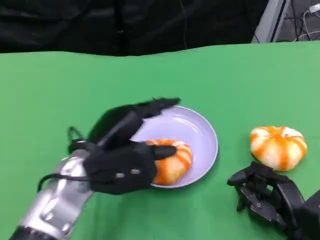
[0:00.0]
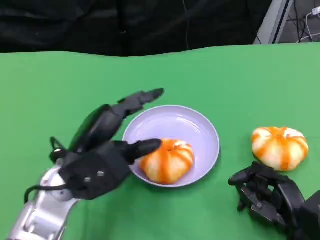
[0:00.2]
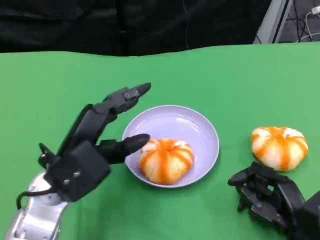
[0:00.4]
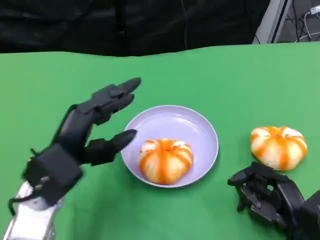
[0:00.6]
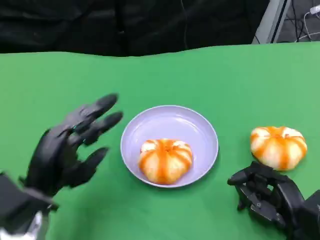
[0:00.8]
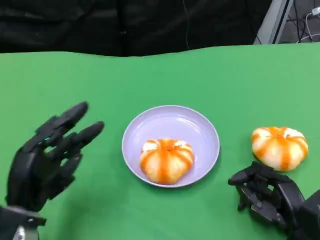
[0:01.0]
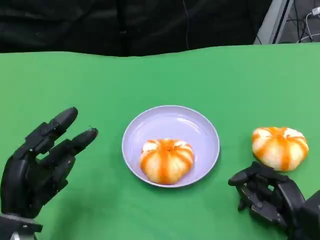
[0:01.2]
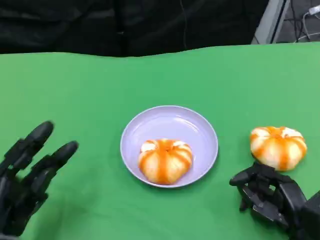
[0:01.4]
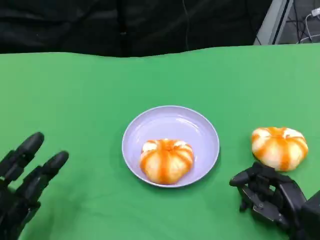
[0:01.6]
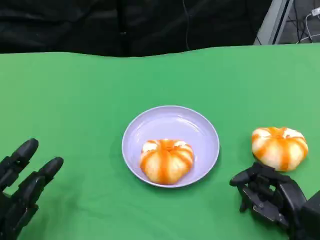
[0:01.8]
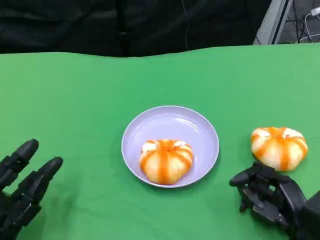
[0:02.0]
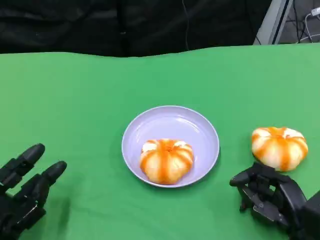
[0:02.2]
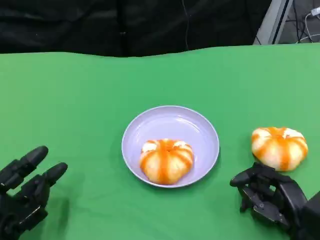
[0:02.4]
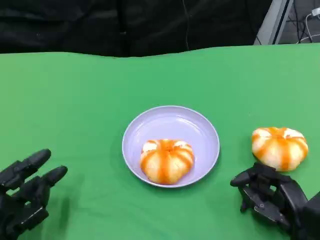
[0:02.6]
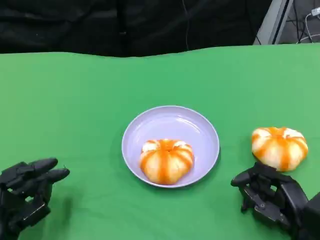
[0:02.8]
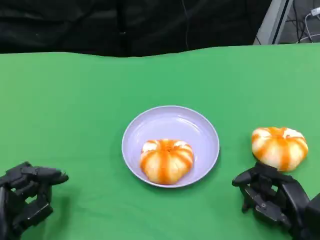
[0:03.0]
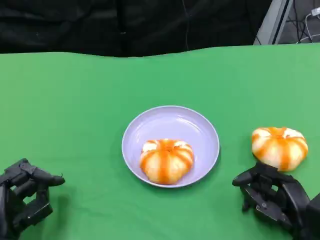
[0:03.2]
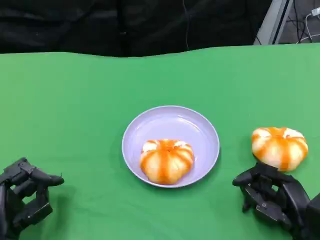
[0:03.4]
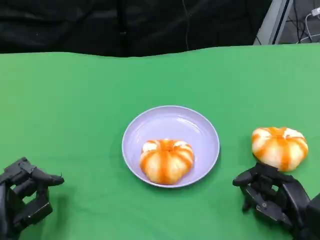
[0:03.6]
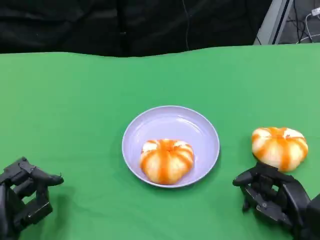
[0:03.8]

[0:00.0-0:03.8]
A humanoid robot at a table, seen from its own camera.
Task of the whole recording: Grasp the bread from the table and place it into the plate.
0:00.0 to 0:01.2: The left hand heads to the left, downward and backward, covering some 15 cm.
0:01.2 to 0:02.6: The left hand ends up about 5 cm from where it was.
0:02.6 to 0:03.8: The hands move only a little.

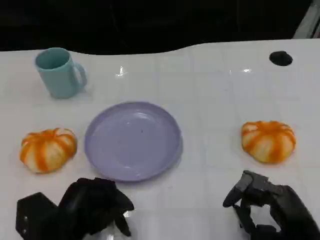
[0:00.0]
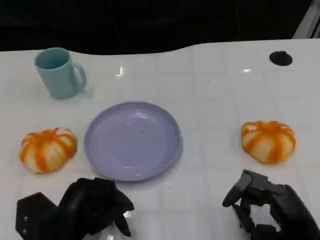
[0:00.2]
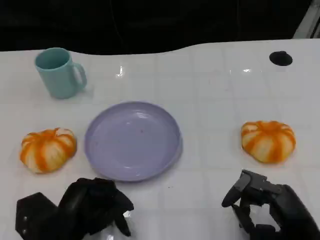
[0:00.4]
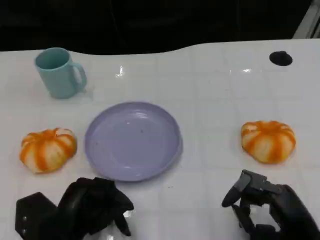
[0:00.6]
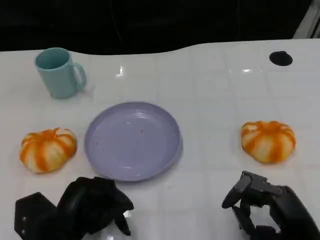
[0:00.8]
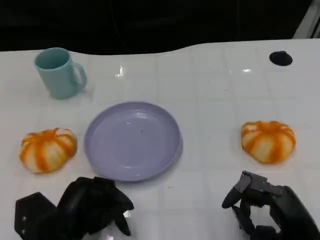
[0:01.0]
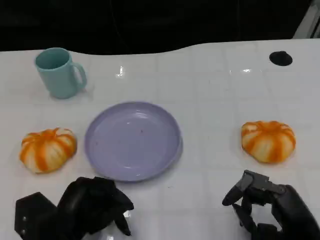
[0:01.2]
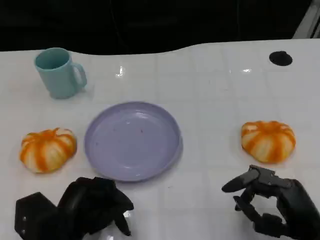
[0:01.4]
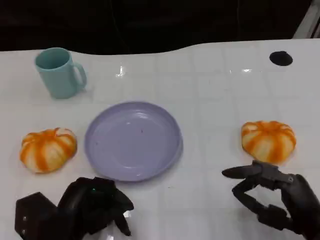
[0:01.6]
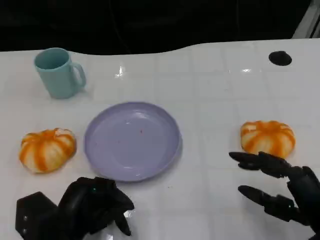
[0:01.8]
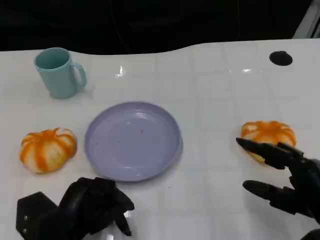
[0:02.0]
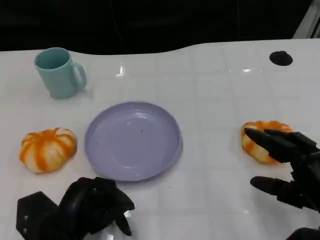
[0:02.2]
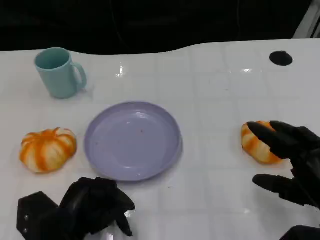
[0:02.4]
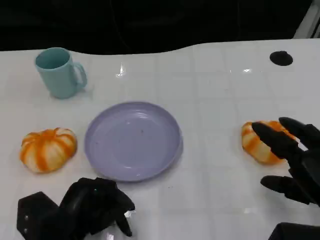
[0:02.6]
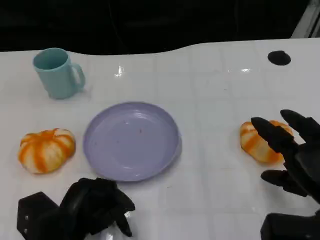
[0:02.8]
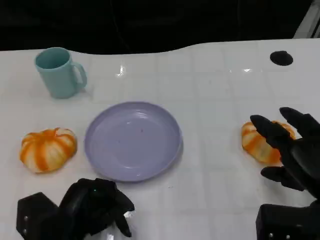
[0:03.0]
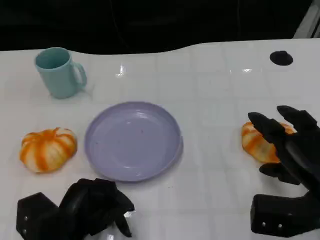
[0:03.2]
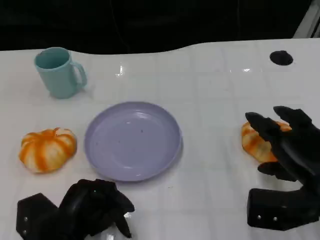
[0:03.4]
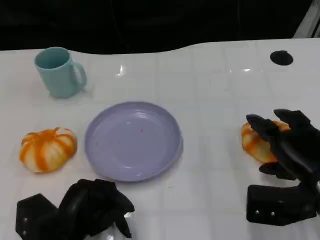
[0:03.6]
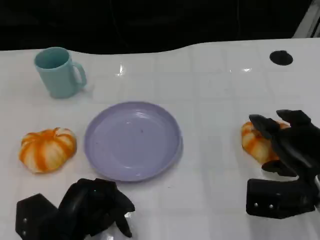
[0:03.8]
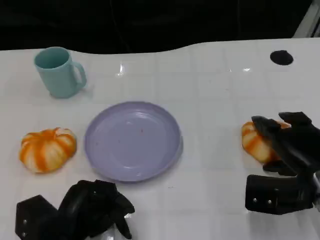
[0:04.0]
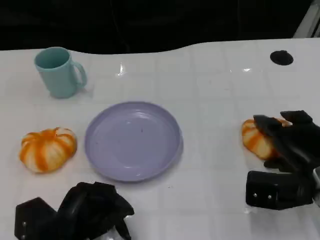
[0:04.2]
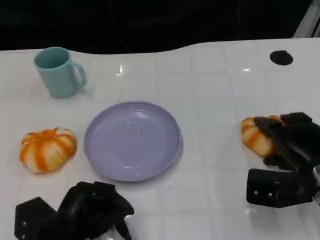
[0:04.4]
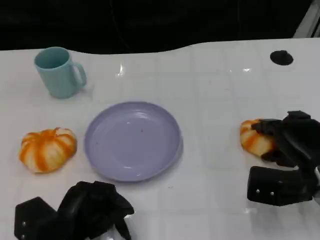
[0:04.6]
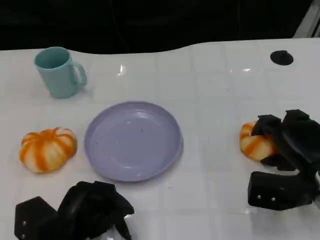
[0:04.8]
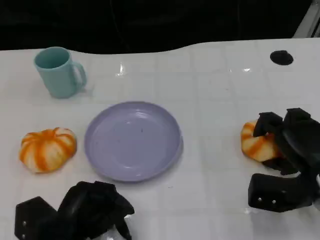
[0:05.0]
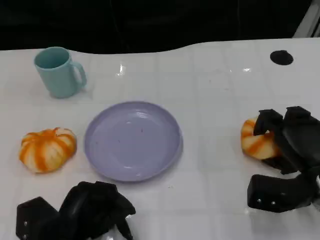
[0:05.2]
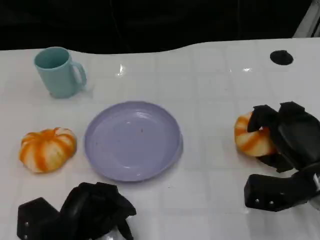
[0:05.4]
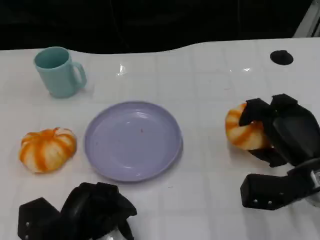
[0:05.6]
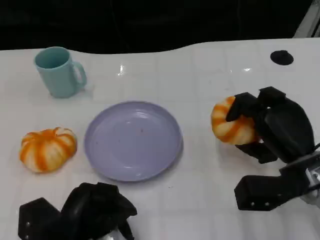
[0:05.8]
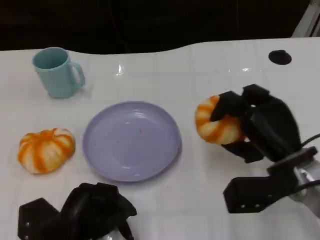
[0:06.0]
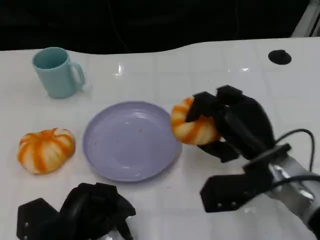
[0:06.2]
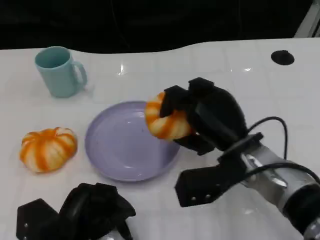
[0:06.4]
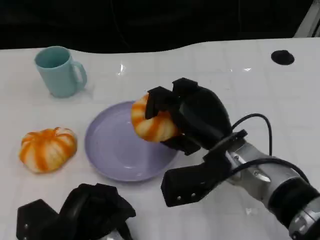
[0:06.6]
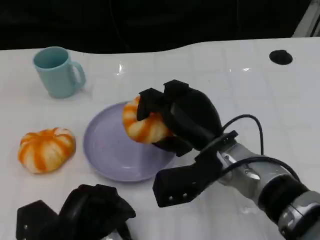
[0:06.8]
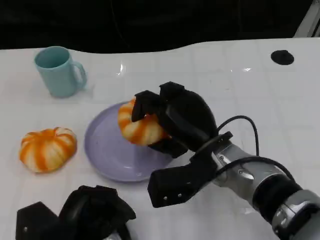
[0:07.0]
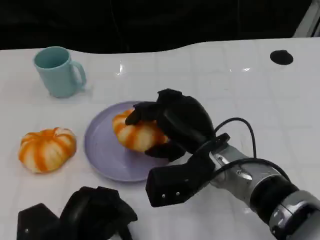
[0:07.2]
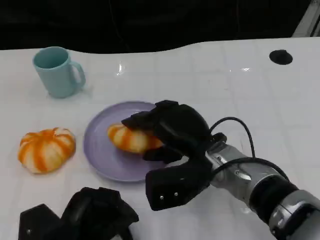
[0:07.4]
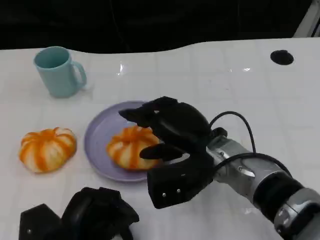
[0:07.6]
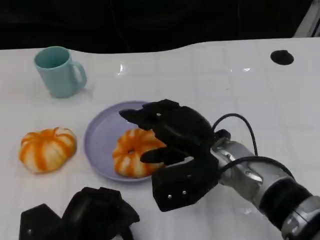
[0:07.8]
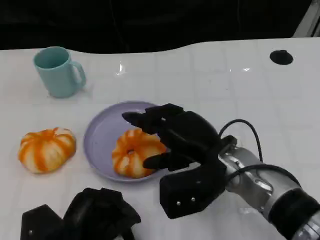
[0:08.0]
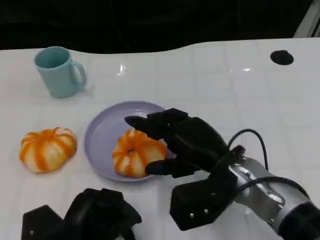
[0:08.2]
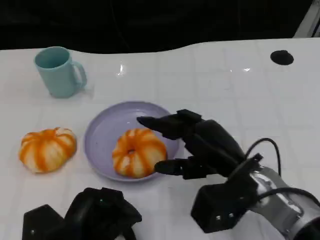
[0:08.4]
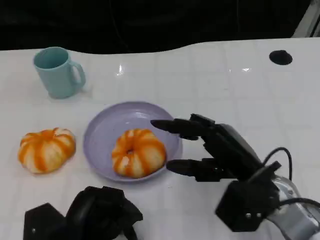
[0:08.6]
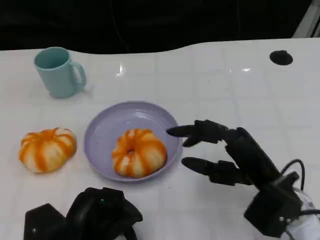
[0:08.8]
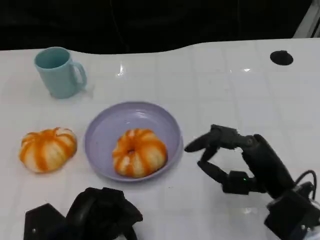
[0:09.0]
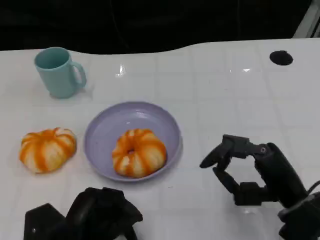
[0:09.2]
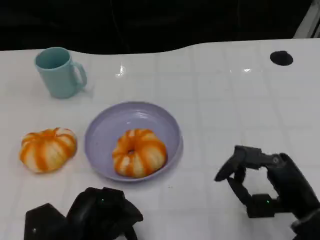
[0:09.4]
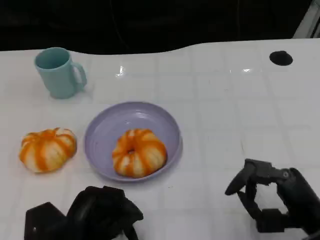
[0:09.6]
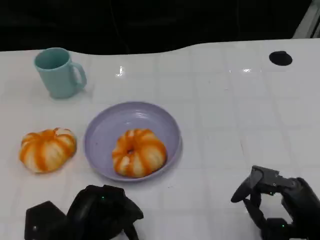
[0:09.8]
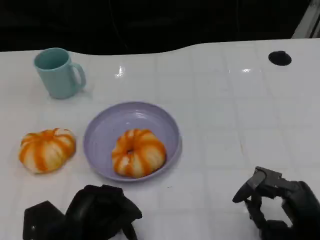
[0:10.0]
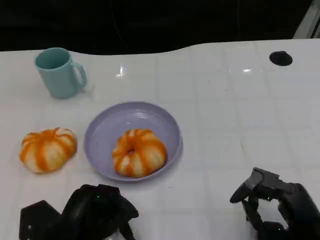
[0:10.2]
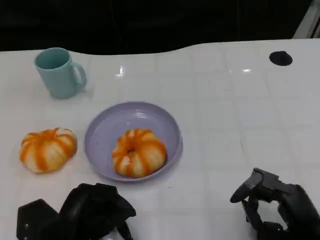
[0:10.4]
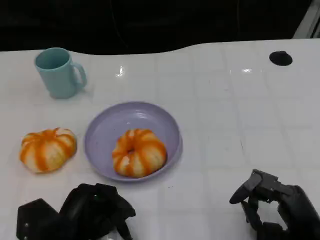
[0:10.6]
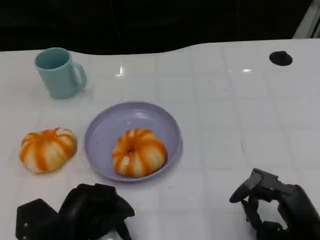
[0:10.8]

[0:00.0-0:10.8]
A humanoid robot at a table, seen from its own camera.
Task of the whole recording: Grasp the bread from the table and place it into the plate.
0:00.0 to 0:01.6: There are only small adjustments of the hands.
0:01.6 to 0:03.0: The right hand ends up approximately 5 cm from where it was.
0:03.0 to 0:04.6: The right hand goes approximately 5 cm forward.
0:04.6 to 0:06.2: The right hand is displaced to the left by approximately 10 cm.
0:06.2 to 0:07.8: The right hand travels to the left by roughly 5 cm.
0:07.8 to 0:09.2: The right hand travels to the right and backward by some 15 cm.
0:09.2 to 0:10.8: The right hand ends up roughly 5 cm from where it was.

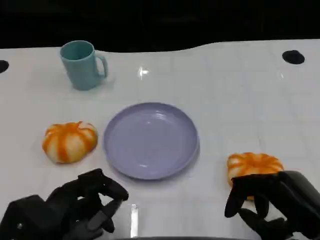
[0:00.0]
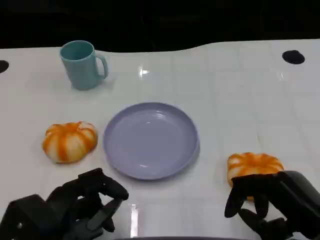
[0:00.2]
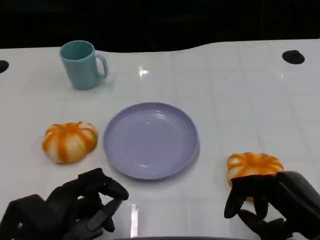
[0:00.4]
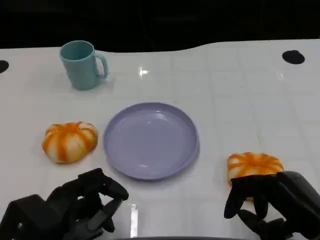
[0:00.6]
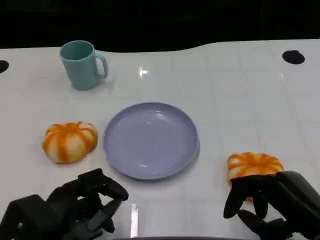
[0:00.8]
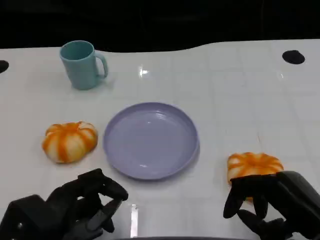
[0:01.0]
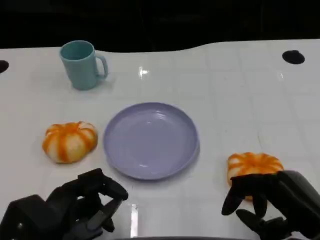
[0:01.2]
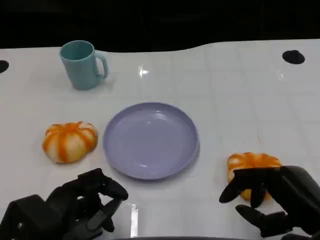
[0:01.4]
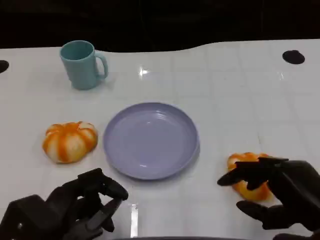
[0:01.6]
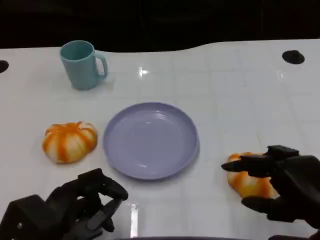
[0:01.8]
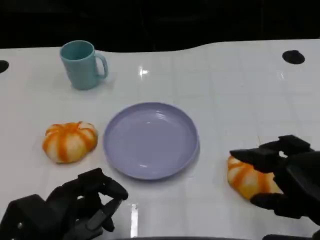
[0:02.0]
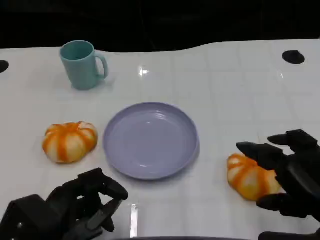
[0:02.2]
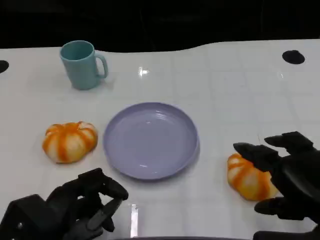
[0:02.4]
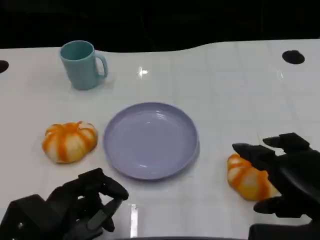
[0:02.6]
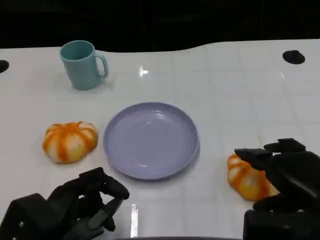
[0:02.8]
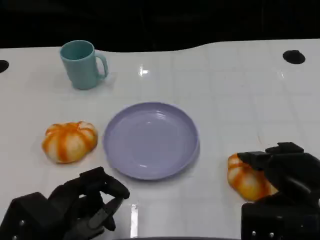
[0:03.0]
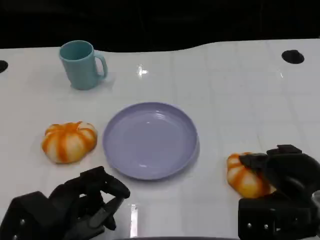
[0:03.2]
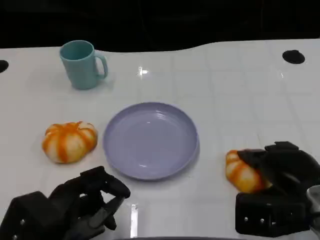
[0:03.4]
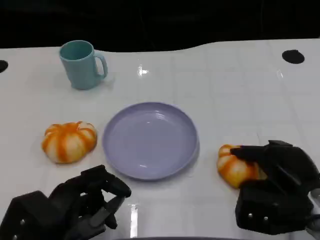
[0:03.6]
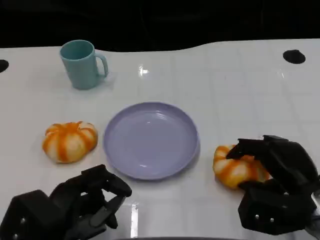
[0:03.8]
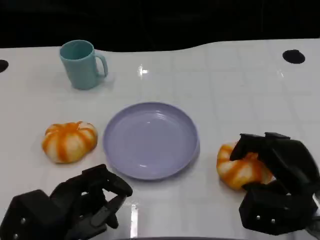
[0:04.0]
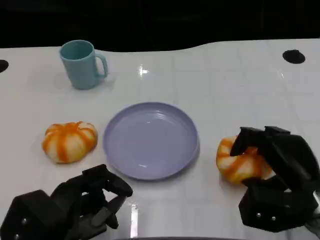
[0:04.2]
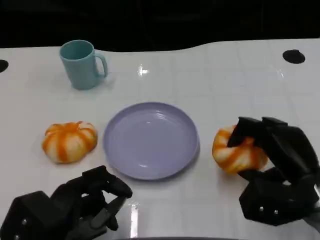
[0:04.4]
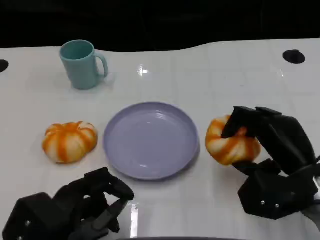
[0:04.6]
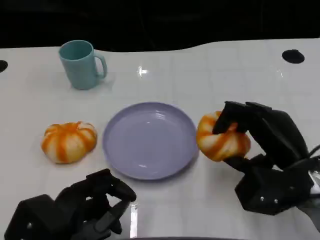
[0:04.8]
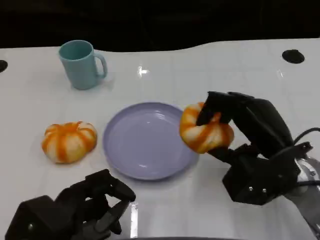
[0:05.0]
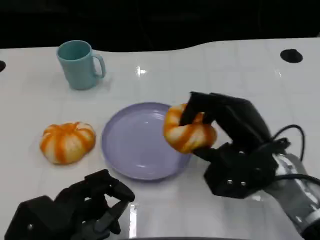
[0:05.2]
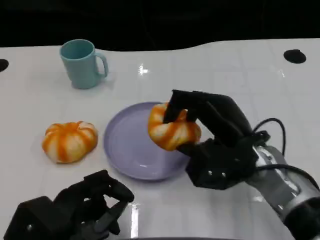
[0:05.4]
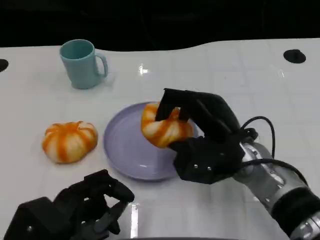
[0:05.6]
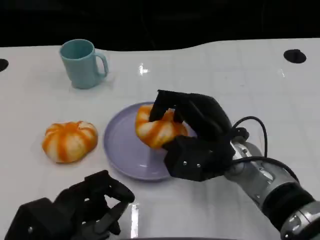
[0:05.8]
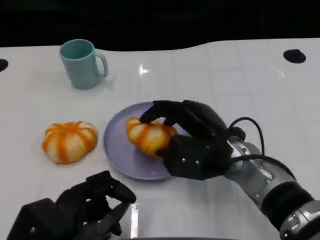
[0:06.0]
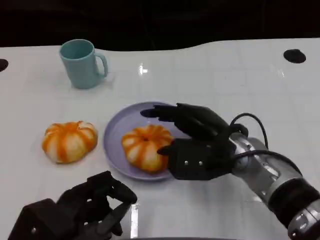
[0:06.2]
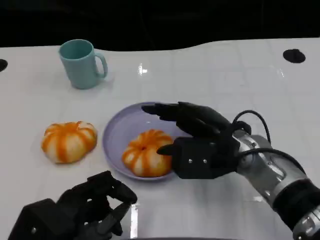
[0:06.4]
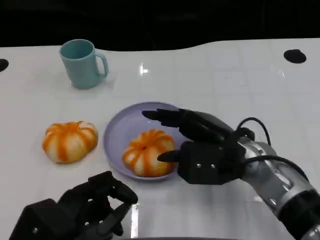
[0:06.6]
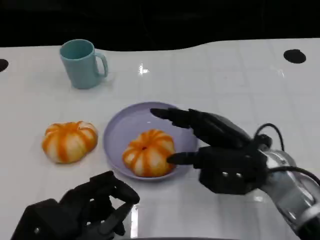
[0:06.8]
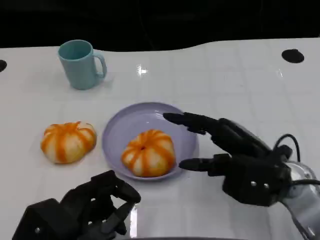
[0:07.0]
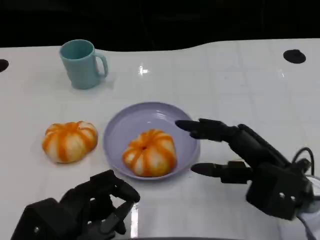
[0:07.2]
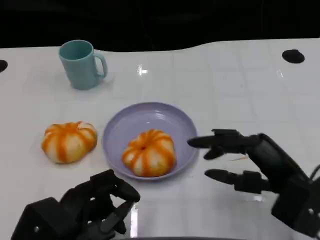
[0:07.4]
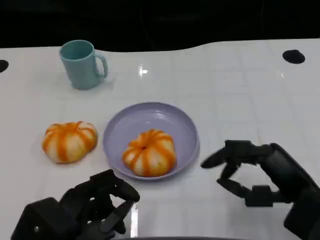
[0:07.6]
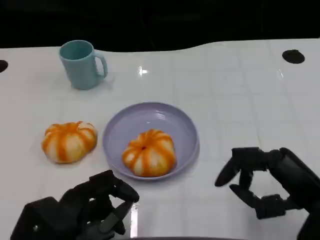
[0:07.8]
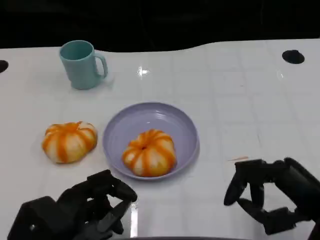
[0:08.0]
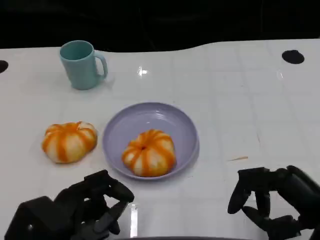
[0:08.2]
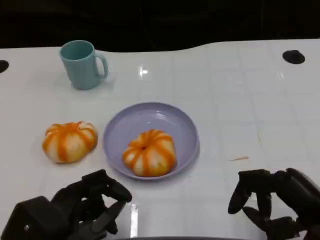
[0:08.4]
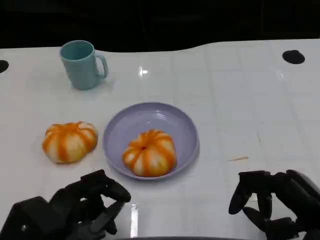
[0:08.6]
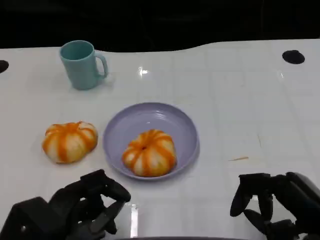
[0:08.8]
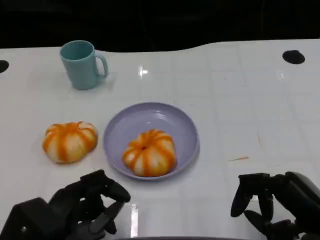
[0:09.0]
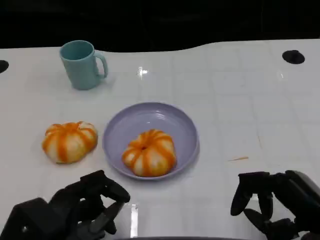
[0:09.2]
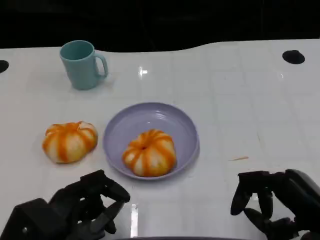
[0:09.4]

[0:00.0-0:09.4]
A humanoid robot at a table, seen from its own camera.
Task of the whole recording: Grasp the bread from the table and place it into the plate.
0:00.0 to 0:01.6: The hands stay close to where they were, moving slightly.
0:01.6 to 0:03.2: The right hand goes about 5 cm forward.
0:04.8 to 0:06.2: The right hand goes some 10 cm to the left.
0:06.2 to 0:07.8: The right hand goes about 15 cm to the right and backward.
0:07.8 to 0:09.4: The hands make only small movements.
